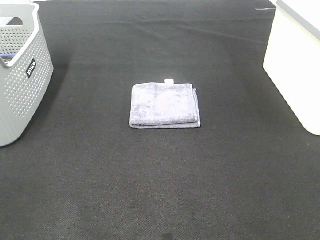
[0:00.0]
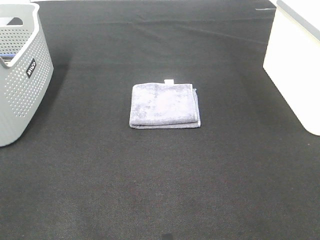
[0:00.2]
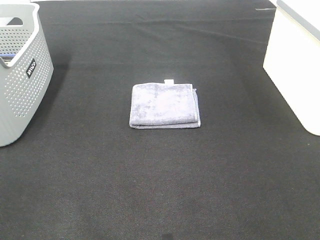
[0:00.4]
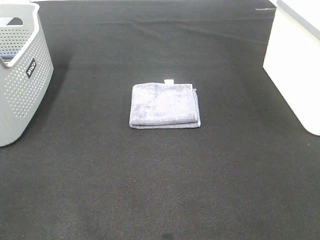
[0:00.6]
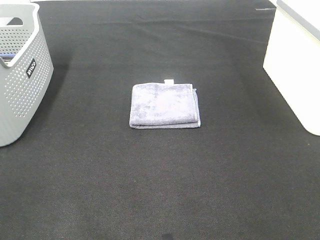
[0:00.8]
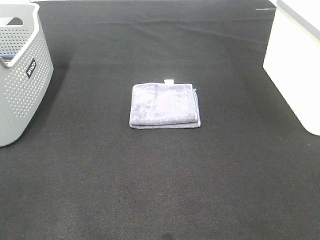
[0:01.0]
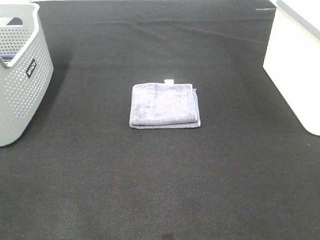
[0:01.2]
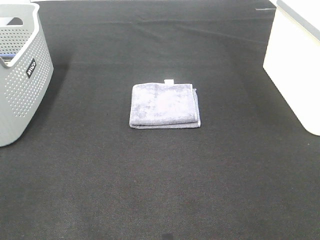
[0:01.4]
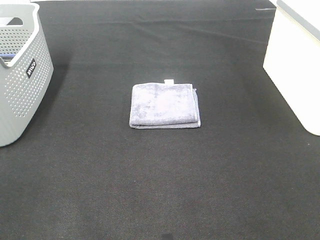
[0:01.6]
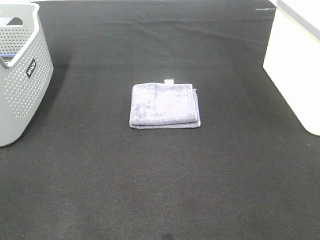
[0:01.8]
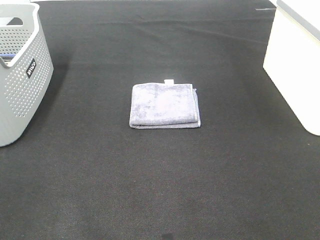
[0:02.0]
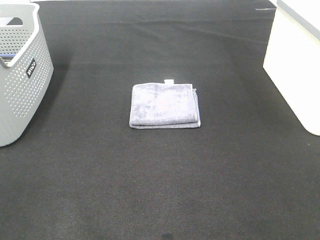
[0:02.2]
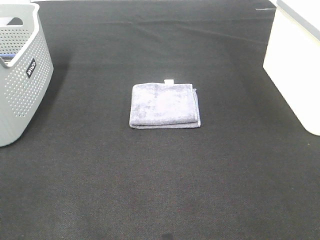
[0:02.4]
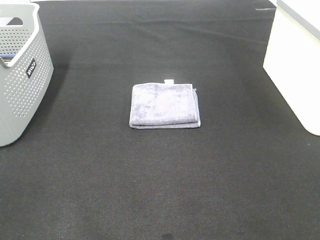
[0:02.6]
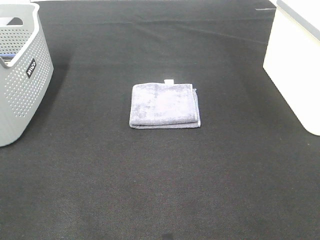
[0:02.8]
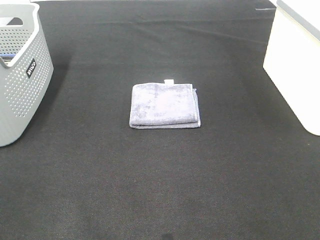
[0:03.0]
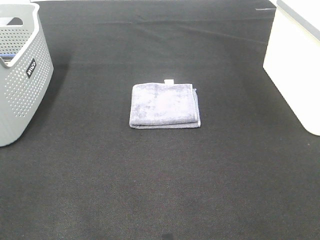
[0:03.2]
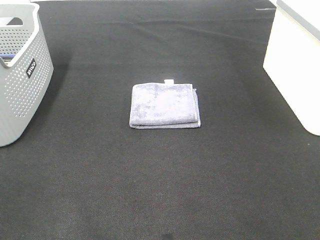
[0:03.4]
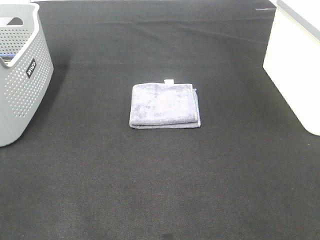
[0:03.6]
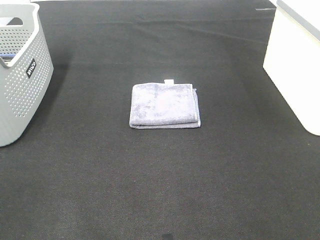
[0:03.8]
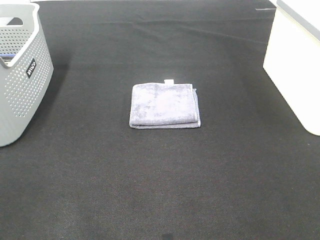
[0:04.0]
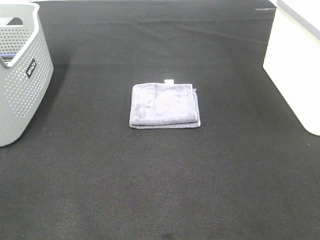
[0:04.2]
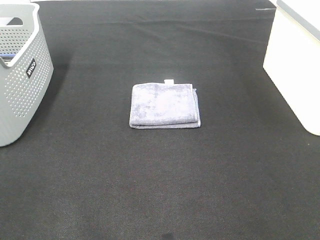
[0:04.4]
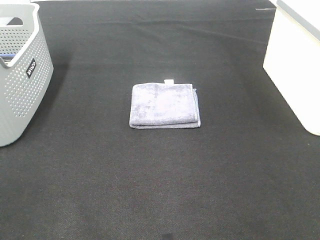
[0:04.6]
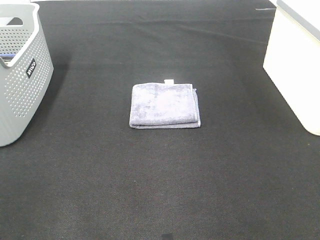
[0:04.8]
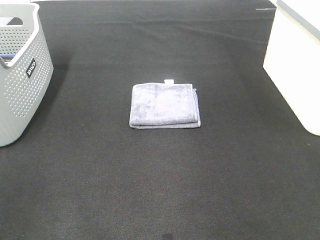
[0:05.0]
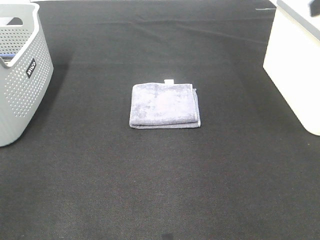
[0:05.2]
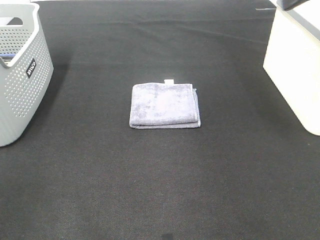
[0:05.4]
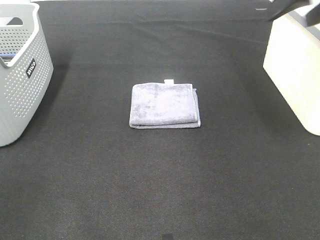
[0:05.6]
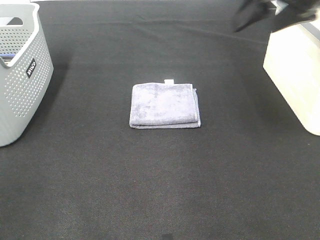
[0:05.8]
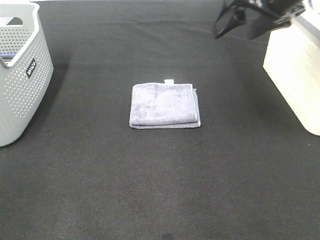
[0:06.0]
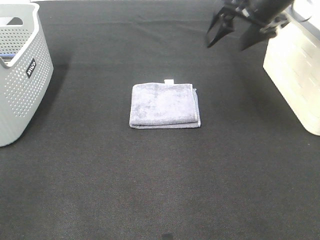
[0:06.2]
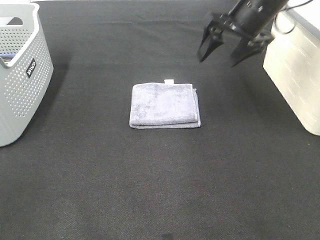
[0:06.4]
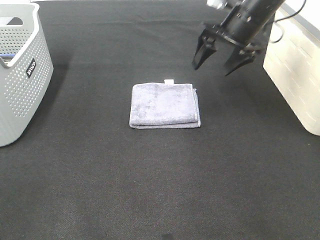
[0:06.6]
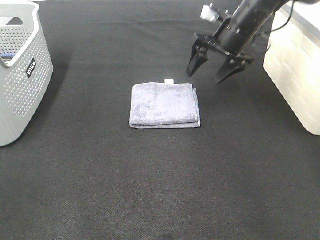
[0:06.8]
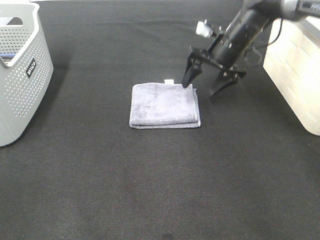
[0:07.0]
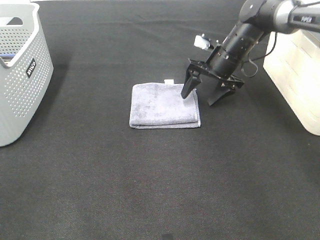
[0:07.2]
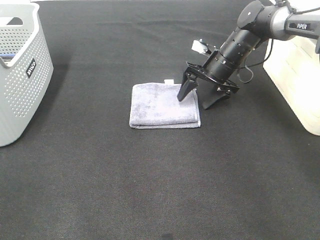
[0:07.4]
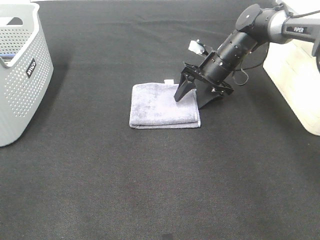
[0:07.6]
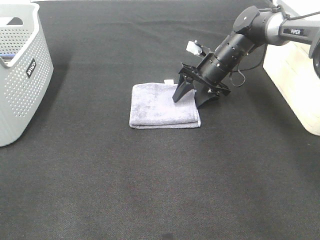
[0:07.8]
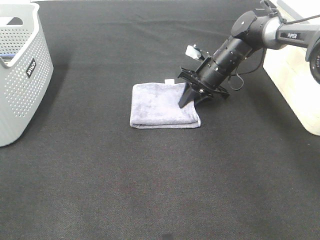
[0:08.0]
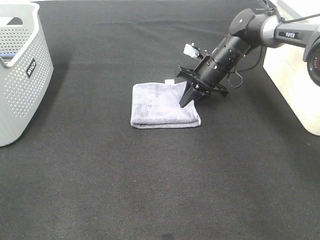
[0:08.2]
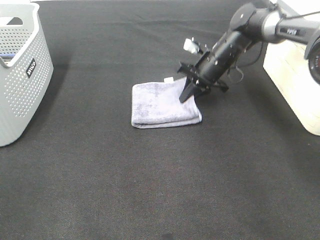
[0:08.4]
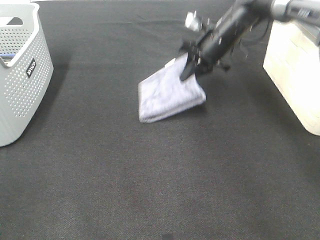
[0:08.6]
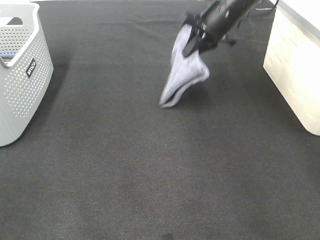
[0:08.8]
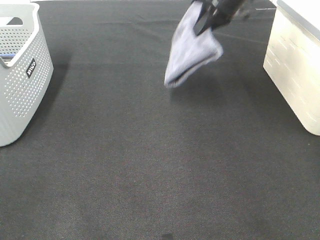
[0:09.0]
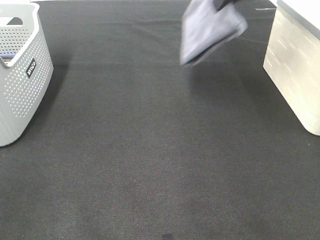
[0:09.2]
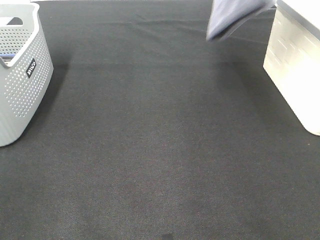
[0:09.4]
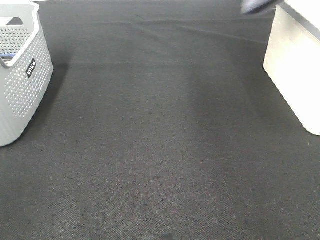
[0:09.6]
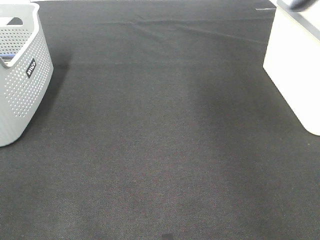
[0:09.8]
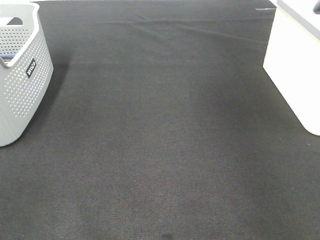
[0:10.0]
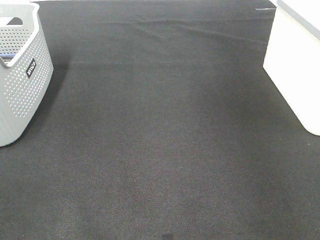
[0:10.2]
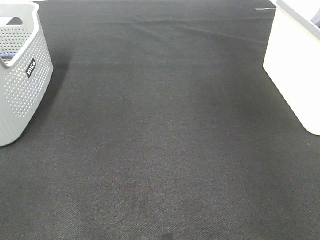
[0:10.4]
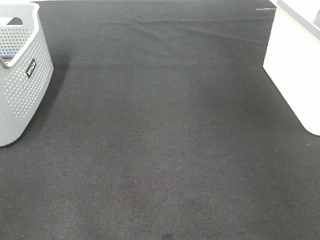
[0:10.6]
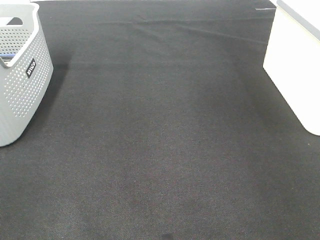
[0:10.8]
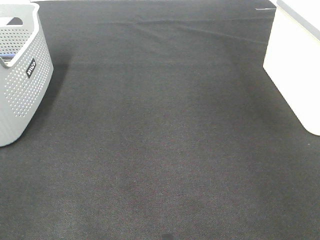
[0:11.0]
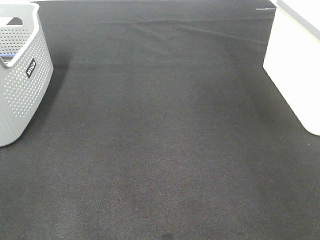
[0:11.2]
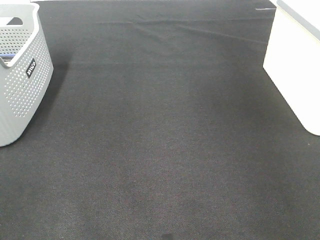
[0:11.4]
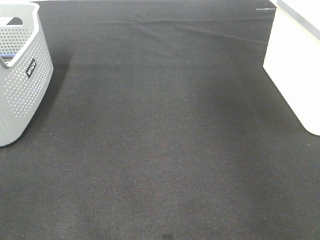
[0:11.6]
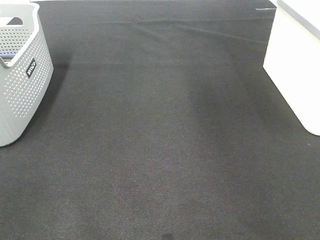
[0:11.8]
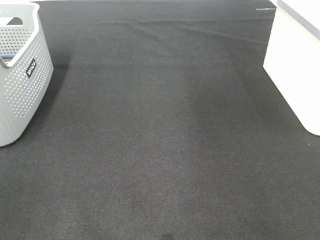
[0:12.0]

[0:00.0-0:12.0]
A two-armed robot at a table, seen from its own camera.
Step, 0:00.0 to 0:08.0: Right hand: grab the folded grey towel.
Step, 0:08.2 to 0:11.0: Right hand: place the grey towel in right basket.
0:00.0 to 0:03.0: Neither gripper changes place.
0:04.4 to 0:06.0: The right gripper travels forward by roughly 35 cm.
0:06.0 to 0:07.6: The right gripper moves downward and forward, about 25 cm.
0:07.6 to 0:09.0: The right gripper is displaced upward by about 20 cm, and closes up.
0:09.0 to 0:10.4: The right gripper travels to the right by about 25 cm.

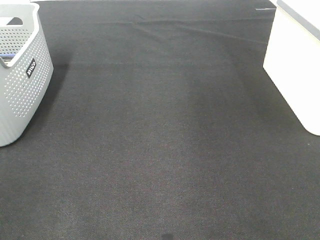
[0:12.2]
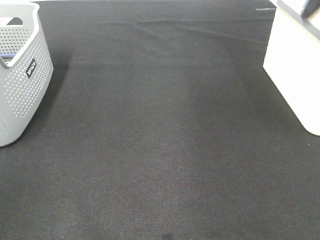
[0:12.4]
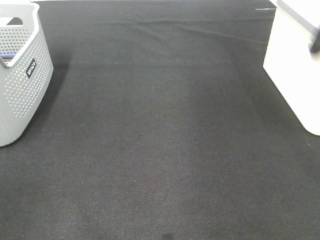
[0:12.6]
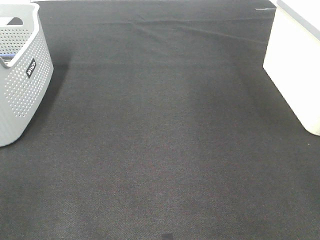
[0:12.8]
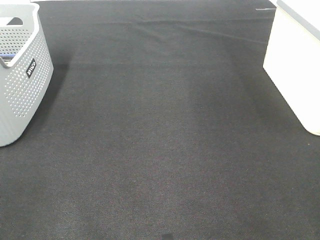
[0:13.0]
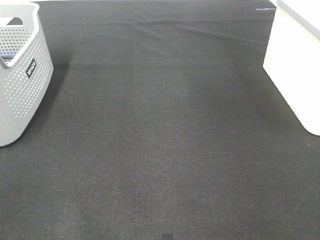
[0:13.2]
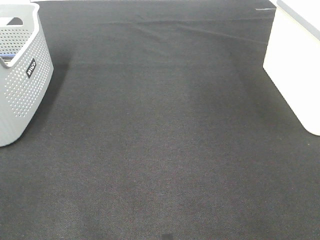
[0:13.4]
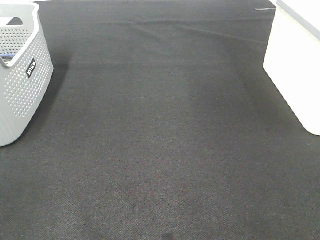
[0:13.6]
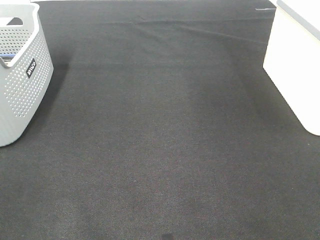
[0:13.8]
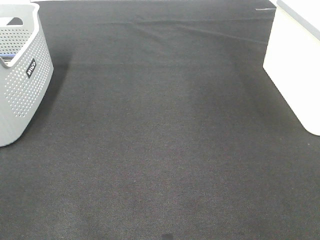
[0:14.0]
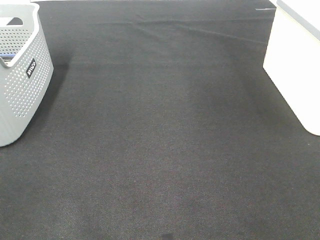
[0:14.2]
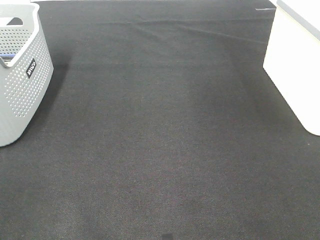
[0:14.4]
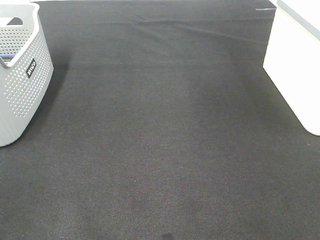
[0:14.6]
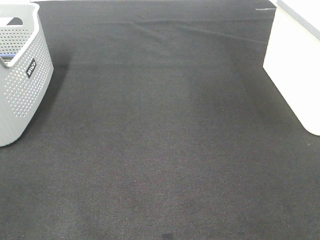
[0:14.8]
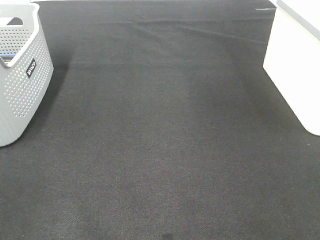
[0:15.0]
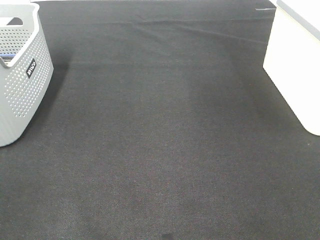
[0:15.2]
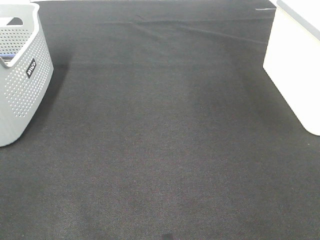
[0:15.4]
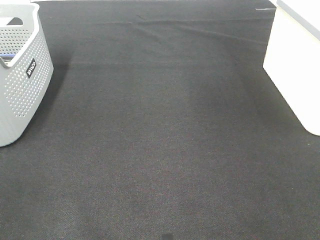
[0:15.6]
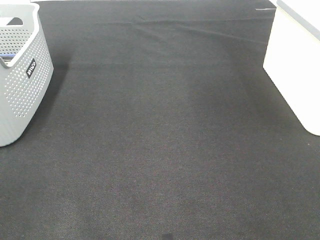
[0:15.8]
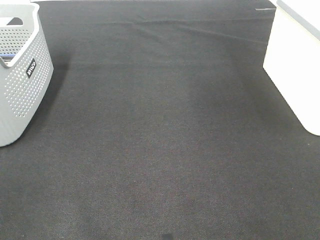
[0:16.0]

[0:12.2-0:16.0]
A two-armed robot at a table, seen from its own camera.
0:14.8 to 0:16.0: Both grippers stay put.

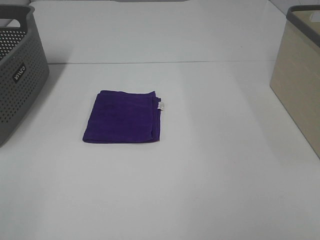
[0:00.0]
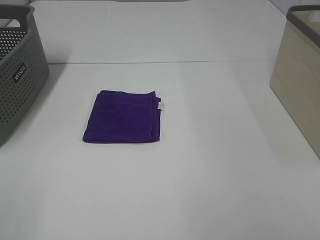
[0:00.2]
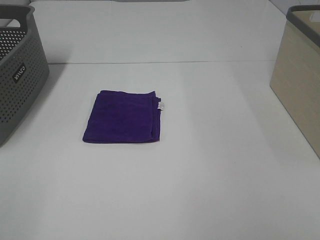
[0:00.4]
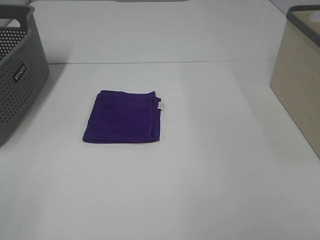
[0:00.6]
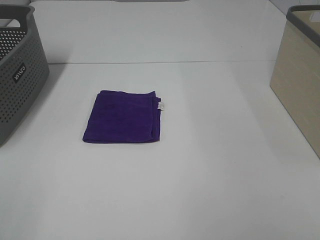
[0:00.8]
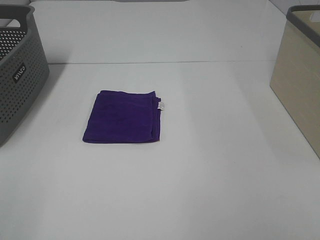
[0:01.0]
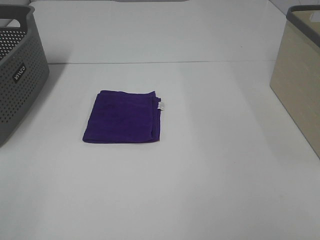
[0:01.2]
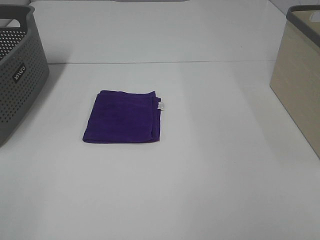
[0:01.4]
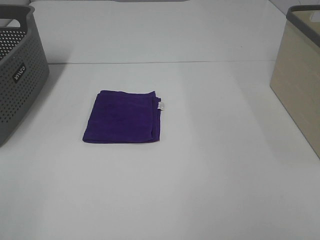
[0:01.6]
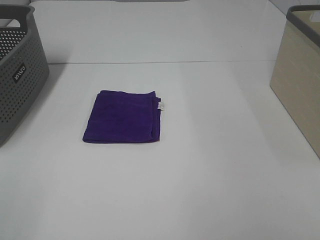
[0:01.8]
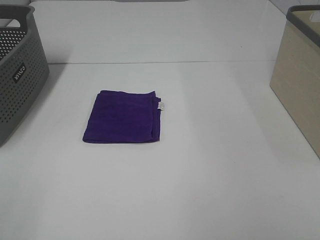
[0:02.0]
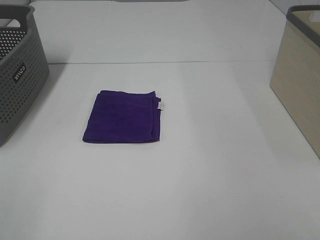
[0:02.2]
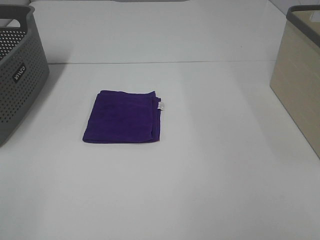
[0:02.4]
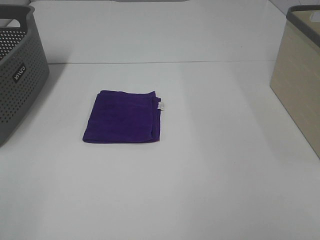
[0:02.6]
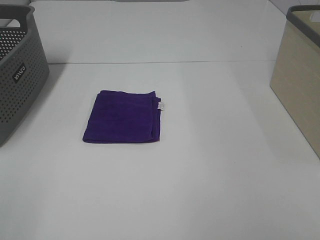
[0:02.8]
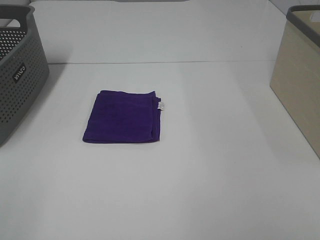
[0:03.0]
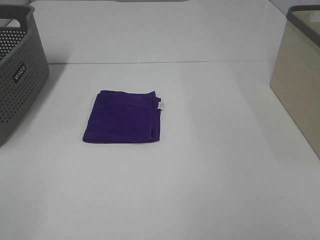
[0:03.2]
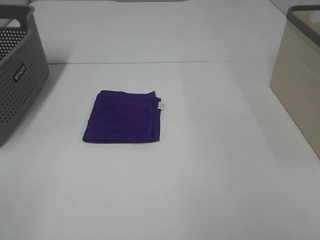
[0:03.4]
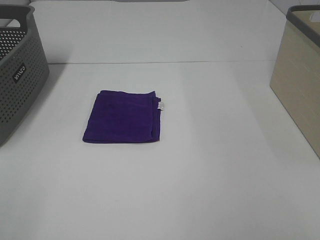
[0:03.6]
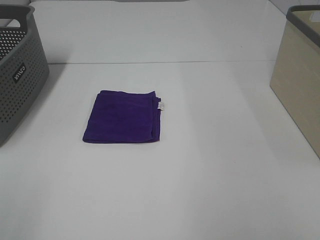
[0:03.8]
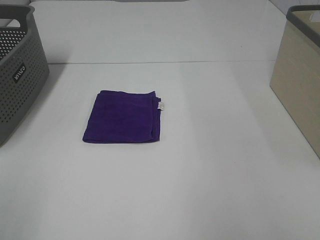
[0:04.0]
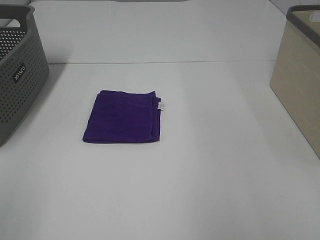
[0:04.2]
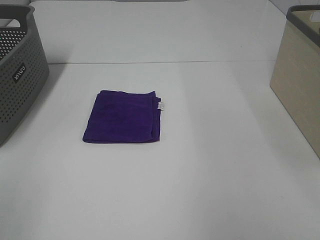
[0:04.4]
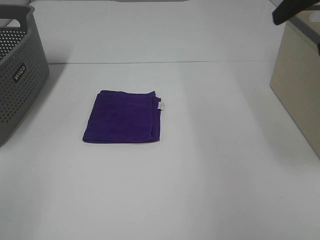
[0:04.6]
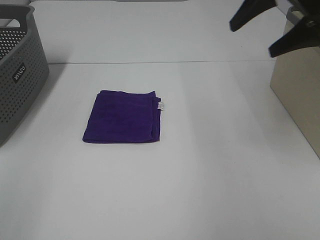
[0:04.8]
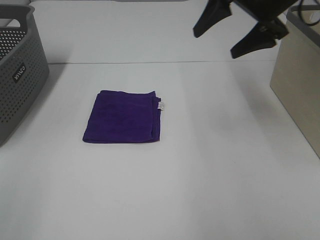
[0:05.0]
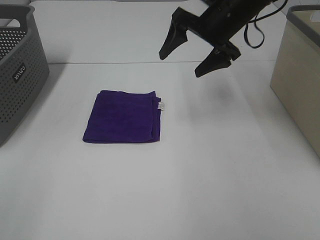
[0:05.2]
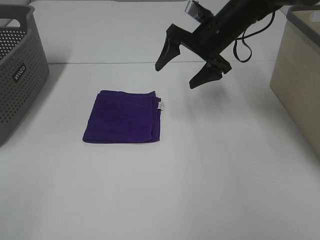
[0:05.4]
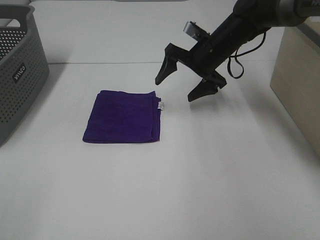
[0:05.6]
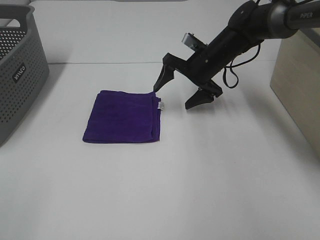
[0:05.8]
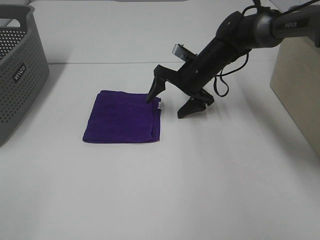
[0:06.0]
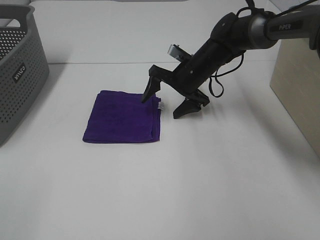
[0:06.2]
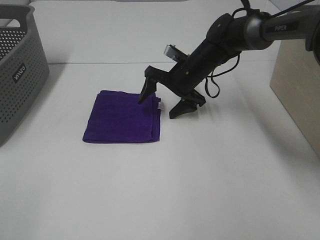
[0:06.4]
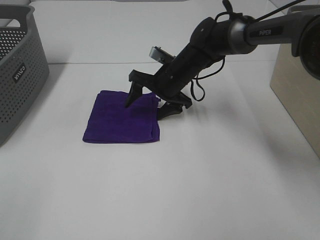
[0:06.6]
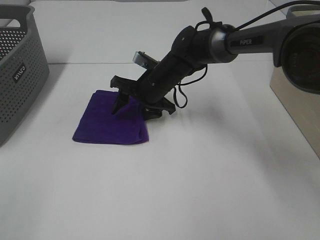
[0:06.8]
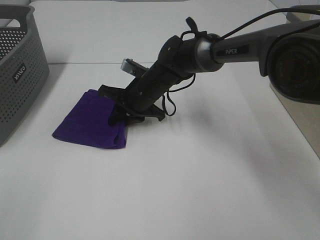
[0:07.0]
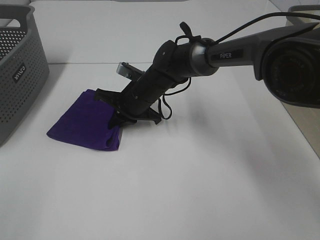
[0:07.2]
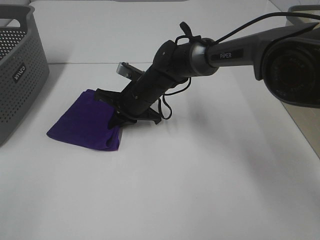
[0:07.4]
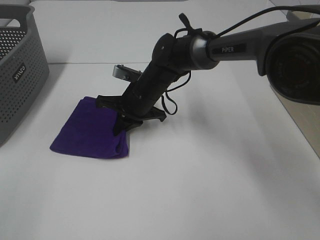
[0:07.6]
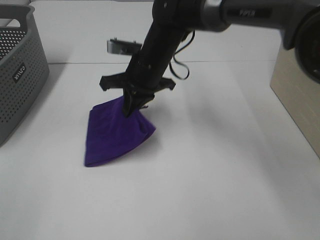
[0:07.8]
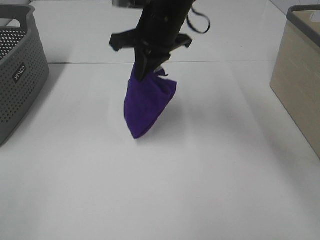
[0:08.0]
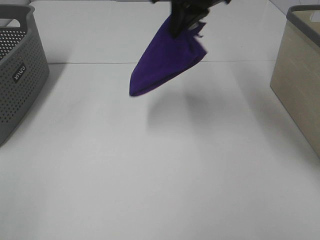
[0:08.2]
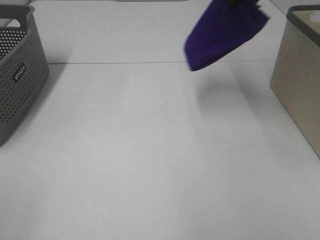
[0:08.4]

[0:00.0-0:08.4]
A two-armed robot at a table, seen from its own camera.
Step, 0:00.0 to 0:07.2: Right hand: grab the folded purple towel.
0:00.0 to 0:02.8: Both grippers stay put.
0:04.2 to 0:05.6: The right gripper travels forward, downward and to the left by approximately 40 cm.
0:05.6 to 0:07.0: The right gripper goes roughly 15 cm to the left and downward, and closes.
0:07.0 to 0:08.4: The right gripper travels upward and to the right by approximately 35 cm.
